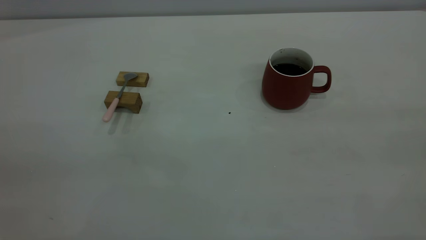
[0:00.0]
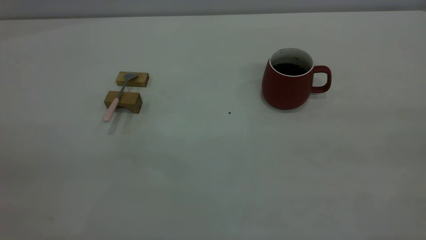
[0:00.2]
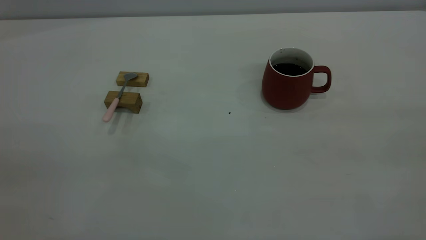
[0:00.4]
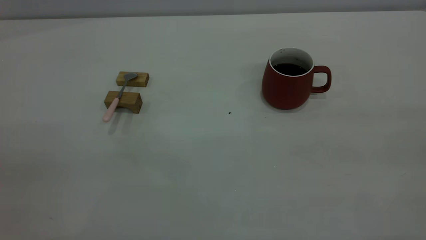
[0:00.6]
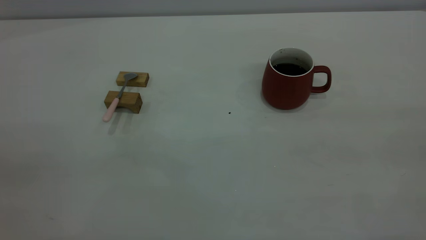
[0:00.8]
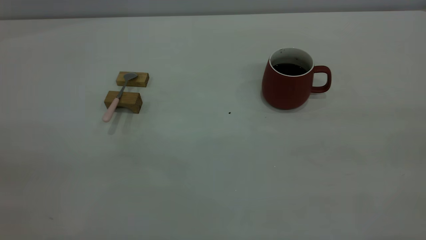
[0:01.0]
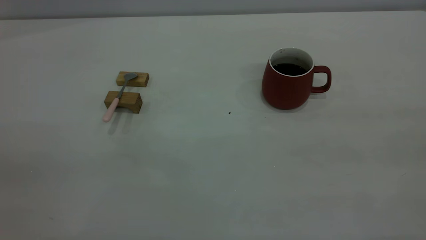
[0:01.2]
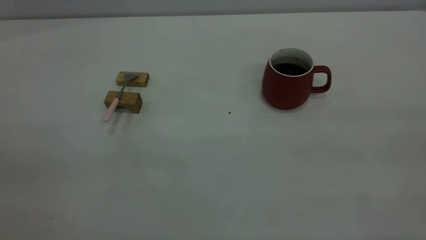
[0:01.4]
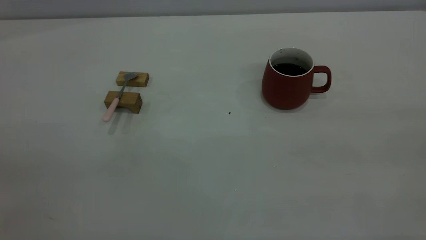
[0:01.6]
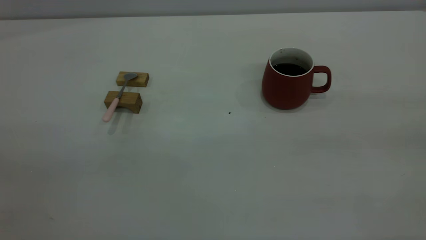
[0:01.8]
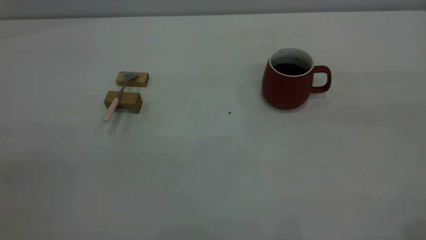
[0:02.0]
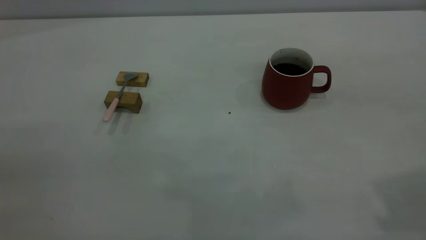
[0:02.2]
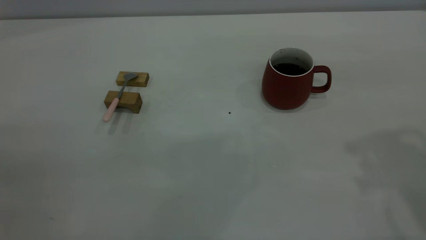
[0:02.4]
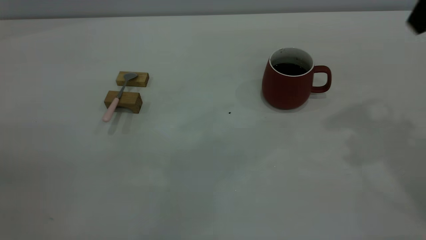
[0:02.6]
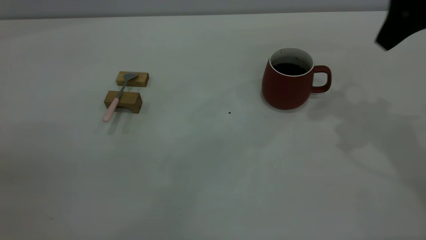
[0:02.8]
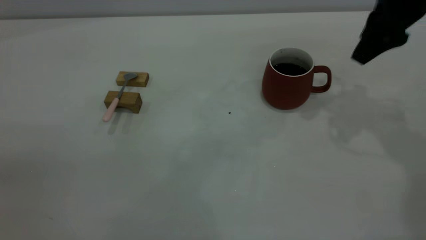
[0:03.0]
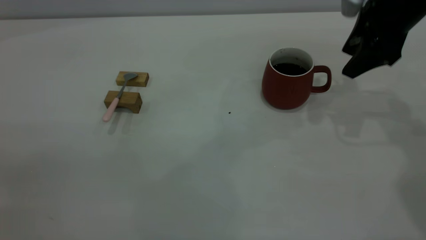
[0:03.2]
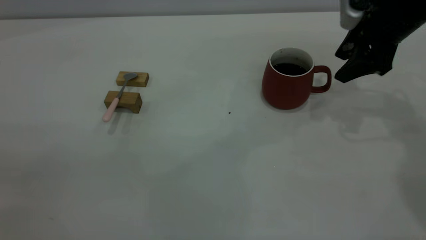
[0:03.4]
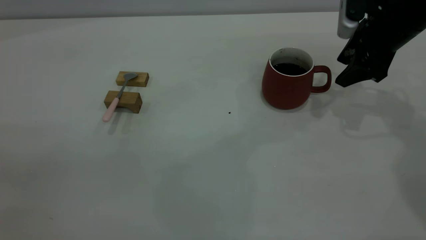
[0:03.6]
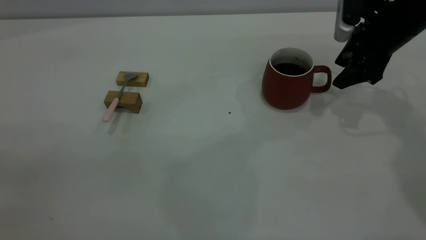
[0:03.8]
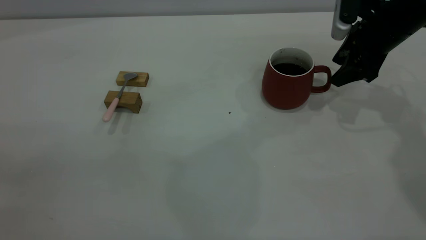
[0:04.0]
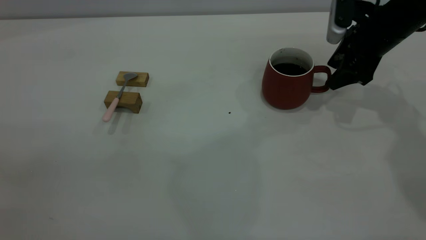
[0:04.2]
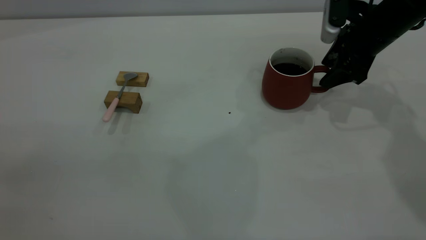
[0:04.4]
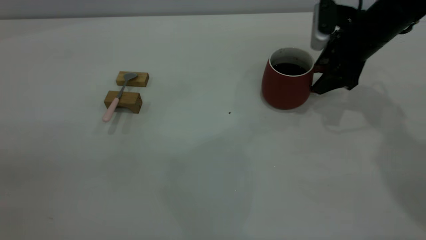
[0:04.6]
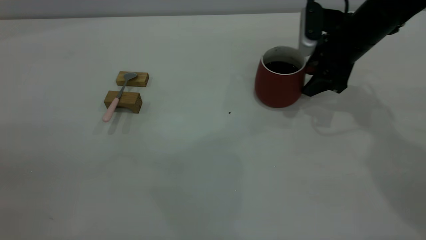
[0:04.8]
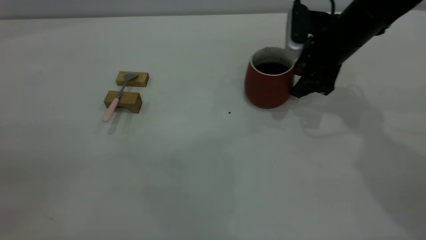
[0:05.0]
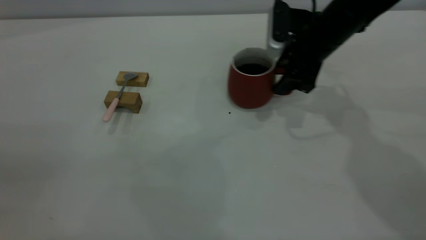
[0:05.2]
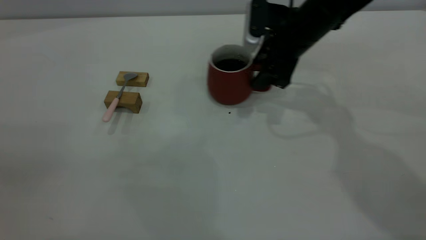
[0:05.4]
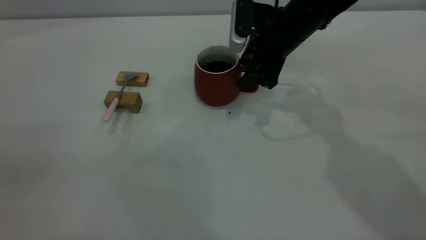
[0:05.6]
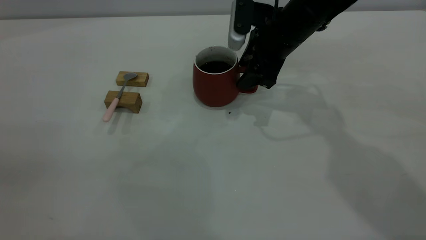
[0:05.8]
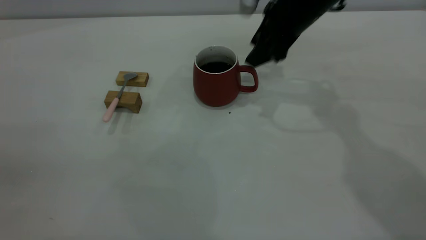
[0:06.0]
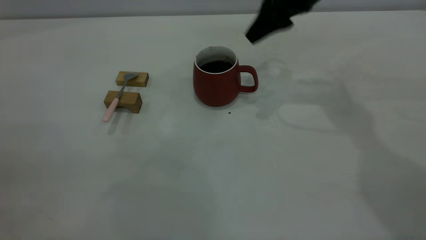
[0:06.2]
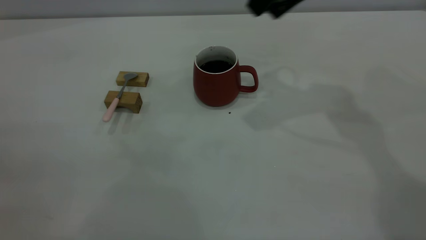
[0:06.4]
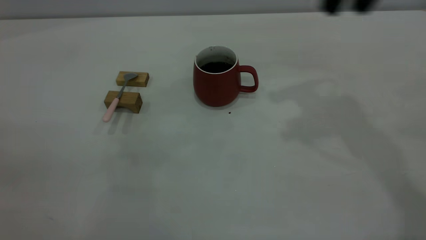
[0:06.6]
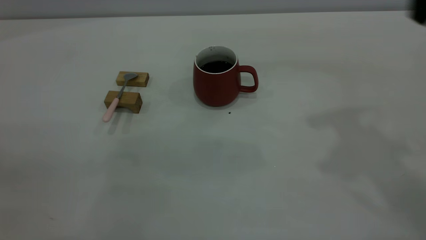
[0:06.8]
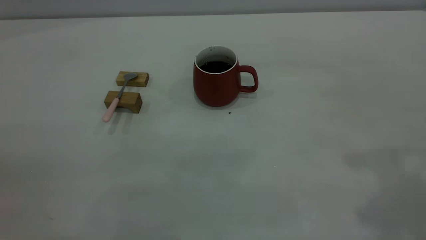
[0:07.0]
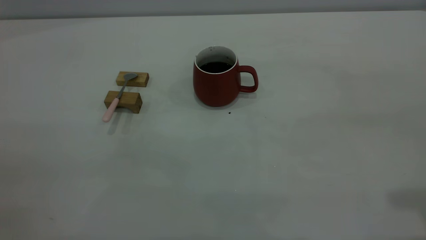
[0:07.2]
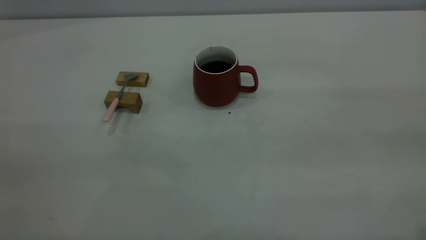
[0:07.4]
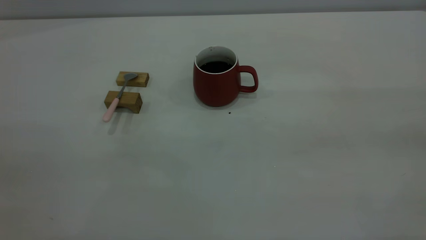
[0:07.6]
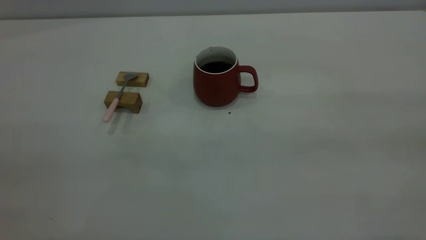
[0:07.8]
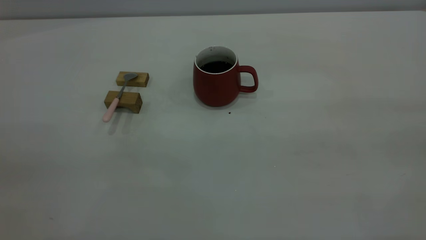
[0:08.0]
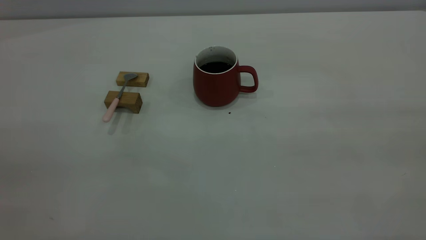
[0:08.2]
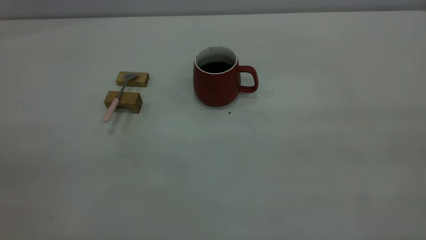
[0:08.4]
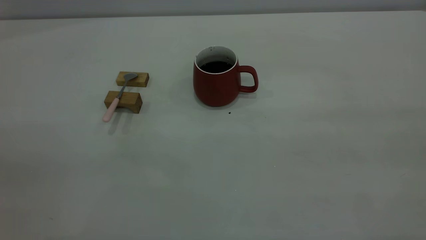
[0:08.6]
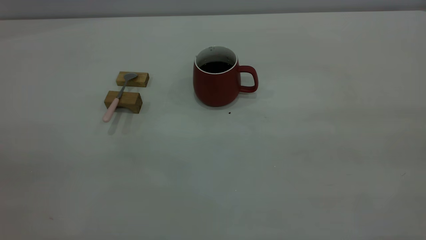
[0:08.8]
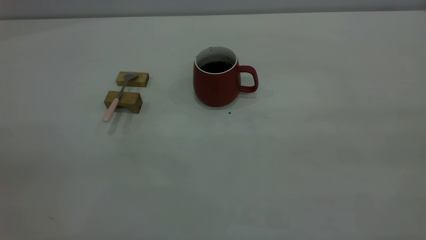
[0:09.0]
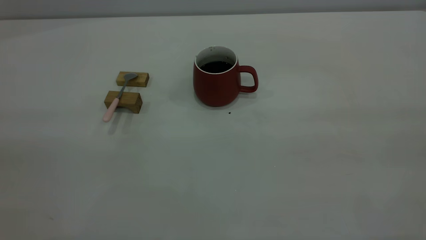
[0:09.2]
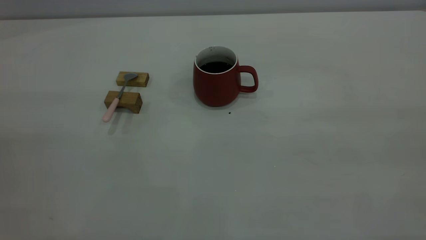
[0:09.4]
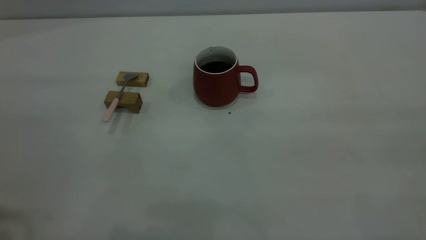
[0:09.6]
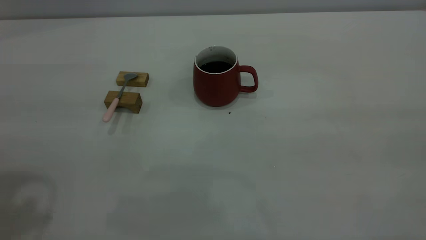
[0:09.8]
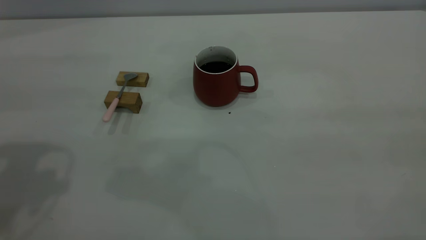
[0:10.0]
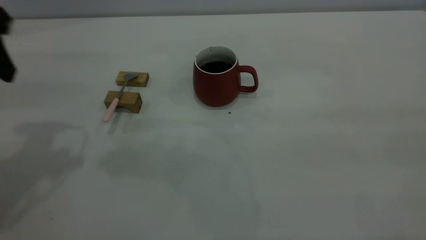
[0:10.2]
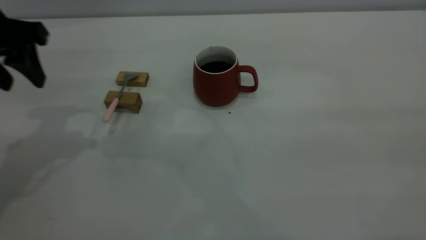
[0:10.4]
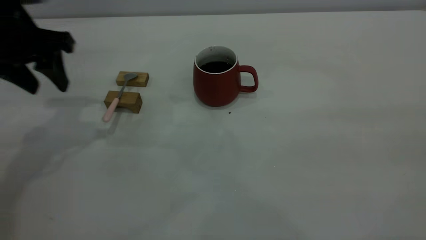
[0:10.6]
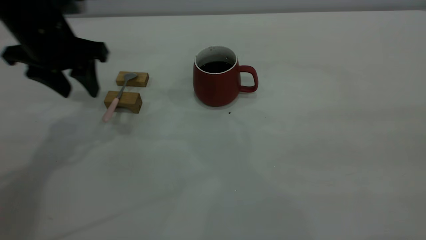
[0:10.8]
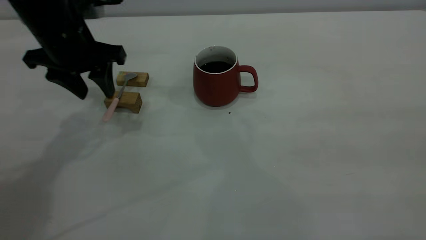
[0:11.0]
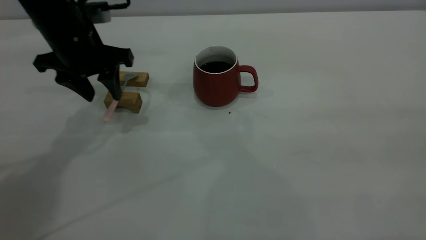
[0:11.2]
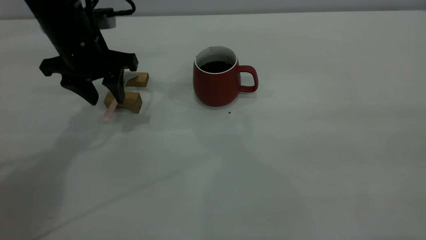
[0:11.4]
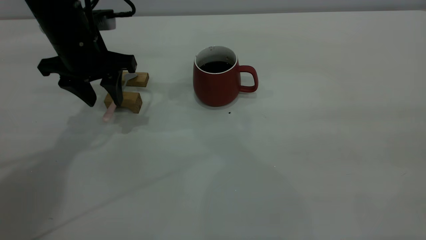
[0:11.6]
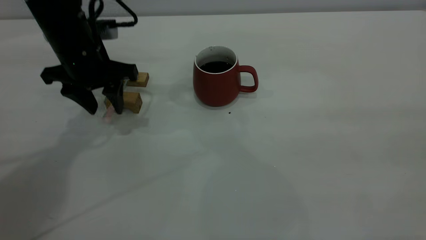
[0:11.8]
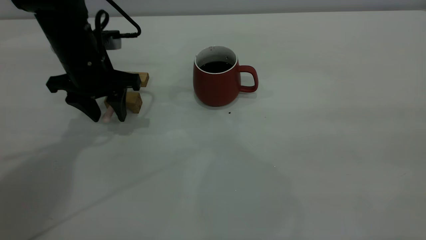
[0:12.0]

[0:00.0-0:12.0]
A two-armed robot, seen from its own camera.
Step, 0:00.0 to 0:06.0: Move the cup with coffee to the center of view.
0:00.0 to 0:01.6: Both grippers stay put.
0:01.6 to 0:03.0: The right gripper travels forward by roughly 35 cm, and opens up.
0:03.0 to 0:04.4: The right gripper travels downward by approximately 10 cm.
0:04.4 to 0:06.0: The right gripper is displaced to the left by about 10 cm.
0:06.0 to 0:07.6: The right gripper is displaced backward, upward and to the right by about 50 cm.
0:09.0 to 0:10.4: The left gripper heads forward and downward, covering approximately 35 cm.
0:10.4 to 0:12.0: The left gripper is displaced downward, to the right and forward by about 15 cm.

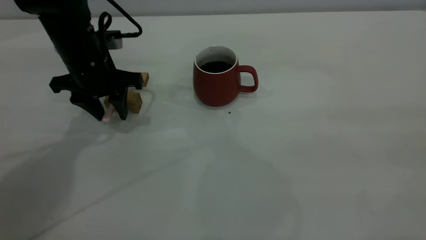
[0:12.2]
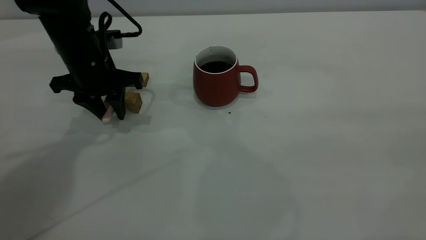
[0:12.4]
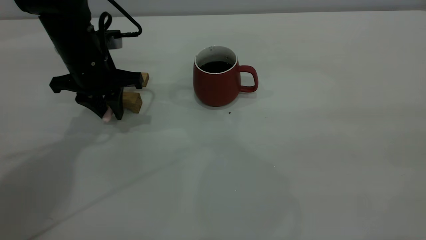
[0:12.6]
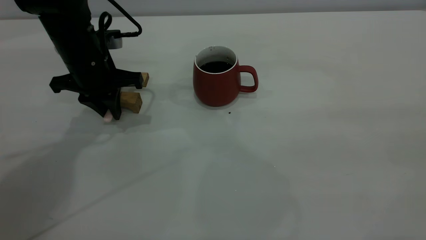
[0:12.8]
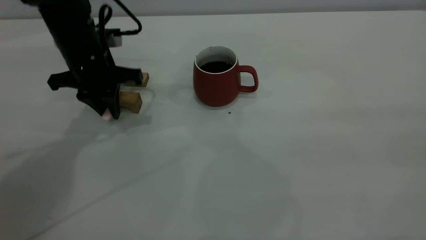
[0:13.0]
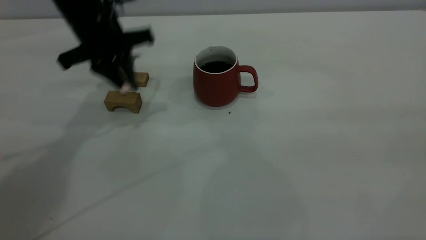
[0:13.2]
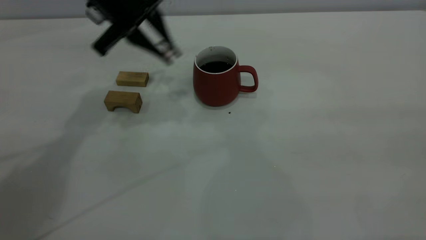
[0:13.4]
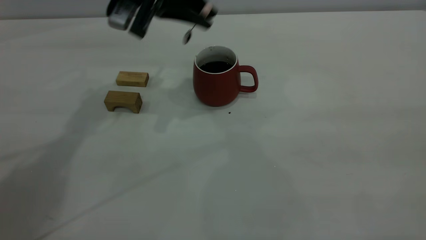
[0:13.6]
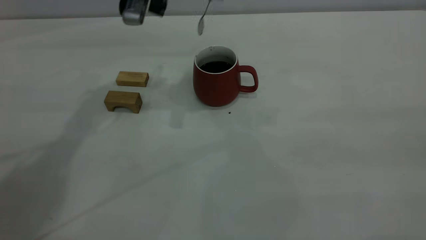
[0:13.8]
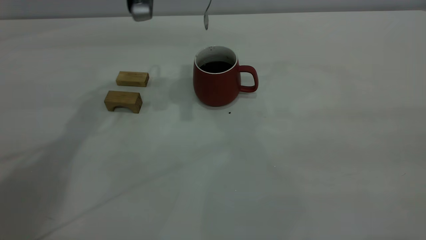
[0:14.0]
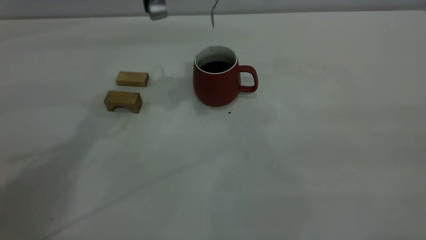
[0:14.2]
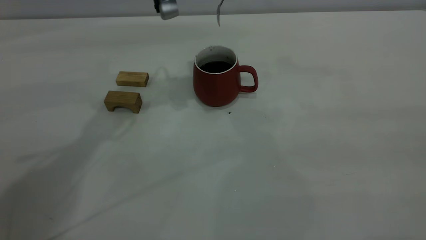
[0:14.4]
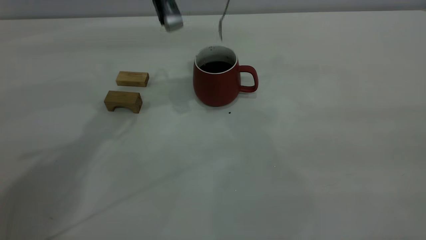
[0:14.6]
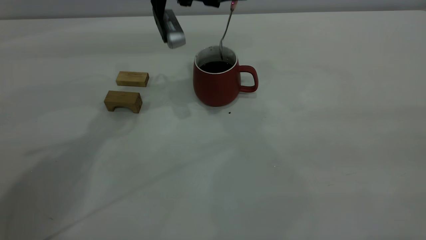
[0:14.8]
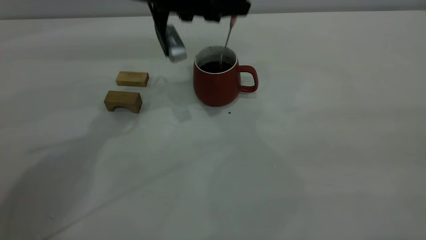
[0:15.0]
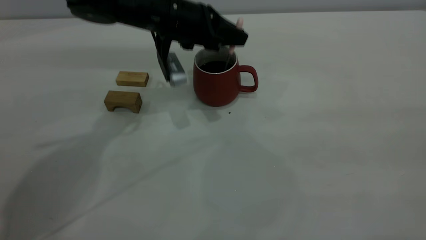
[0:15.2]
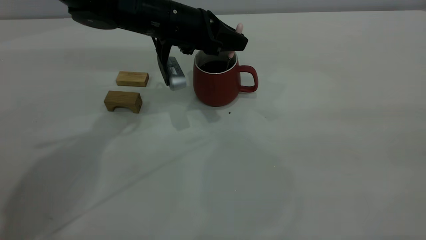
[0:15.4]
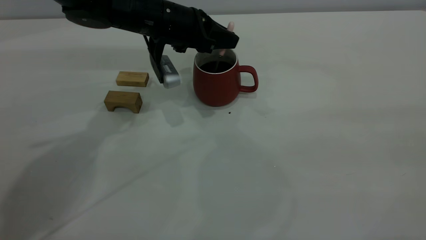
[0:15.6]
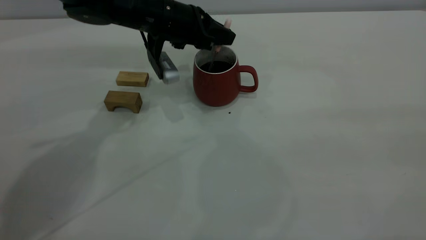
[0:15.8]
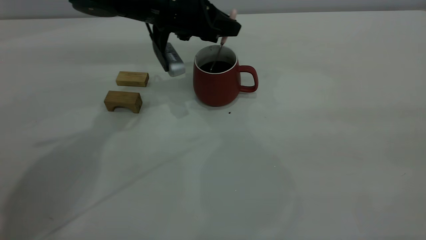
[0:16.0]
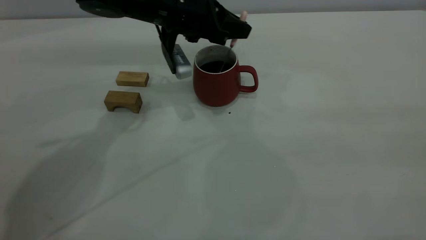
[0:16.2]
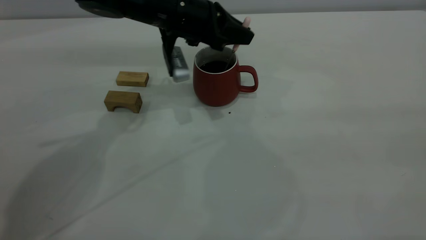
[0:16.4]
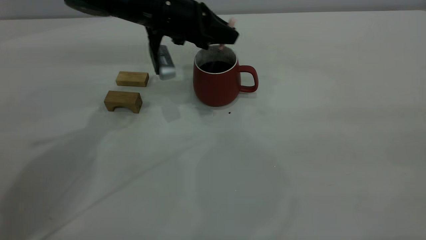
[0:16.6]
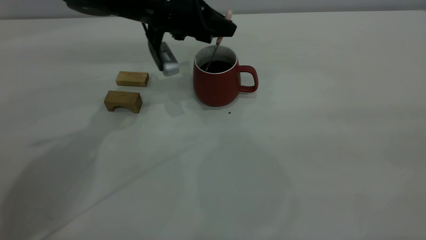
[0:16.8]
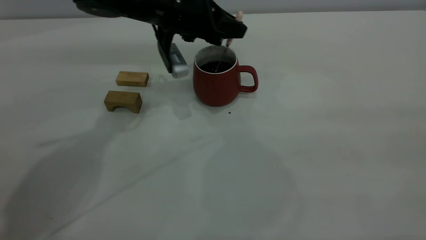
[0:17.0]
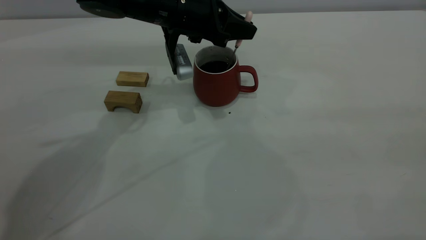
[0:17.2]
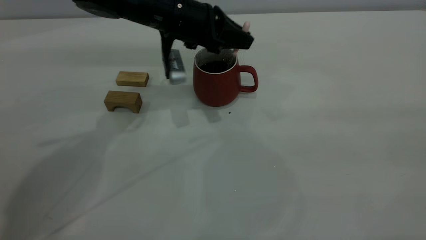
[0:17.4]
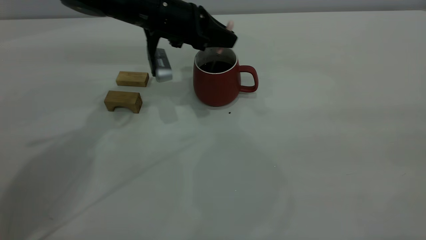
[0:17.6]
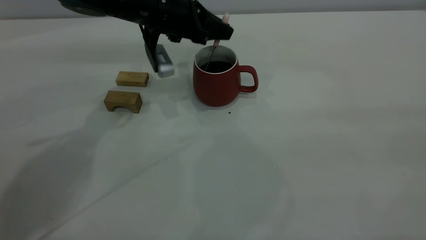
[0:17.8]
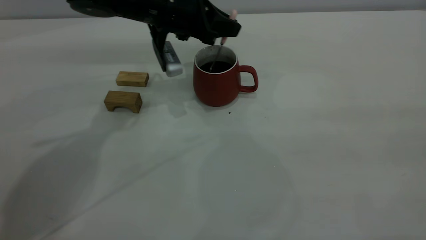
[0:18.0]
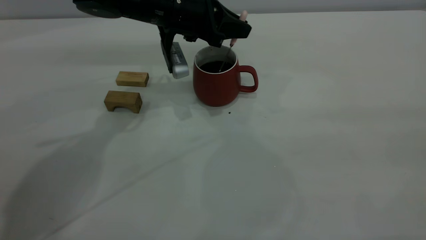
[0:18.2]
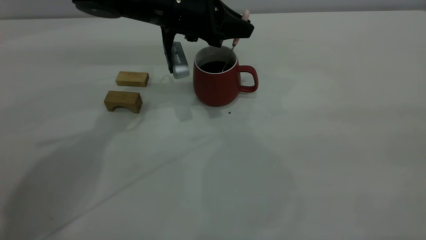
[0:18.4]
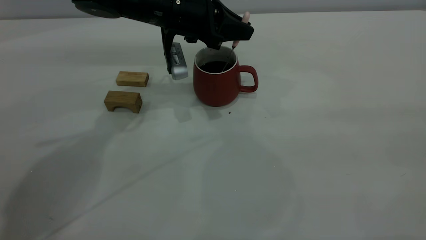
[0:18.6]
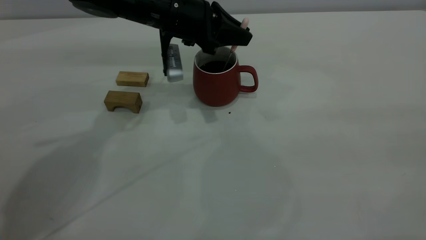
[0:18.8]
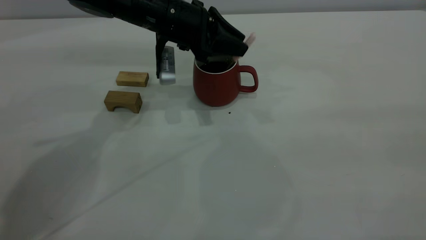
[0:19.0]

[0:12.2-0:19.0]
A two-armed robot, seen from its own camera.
0:12.2 to 0:13.6: The left gripper heads upward and to the right, covering about 15 cm, and closes up.
0:13.6 to 0:15.0: The left gripper goes approximately 5 cm downward.
0:15.0 to 0:17.6: There are only small adjustments of the grippers.
0:17.6 to 0:19.0: The left gripper opens.
